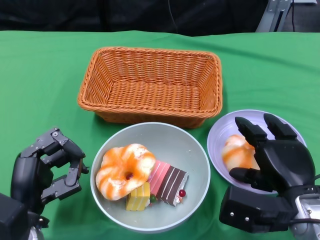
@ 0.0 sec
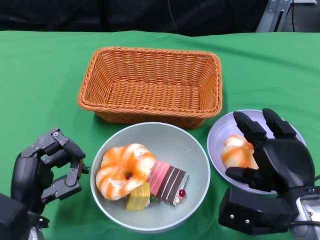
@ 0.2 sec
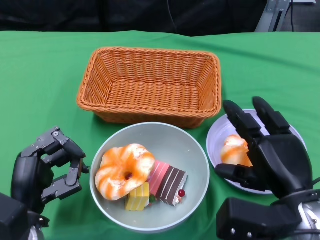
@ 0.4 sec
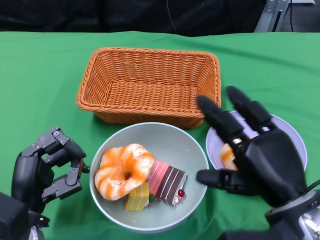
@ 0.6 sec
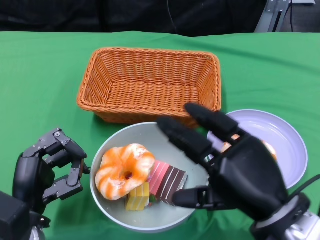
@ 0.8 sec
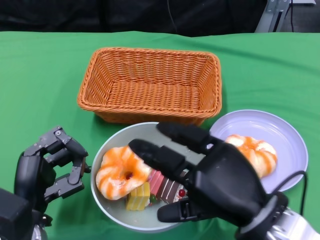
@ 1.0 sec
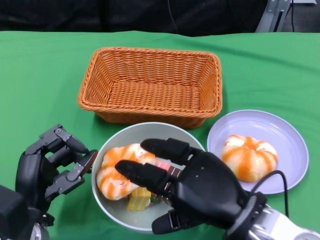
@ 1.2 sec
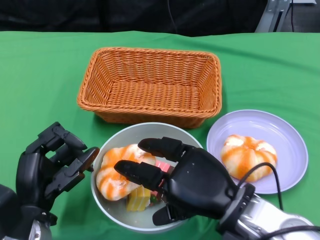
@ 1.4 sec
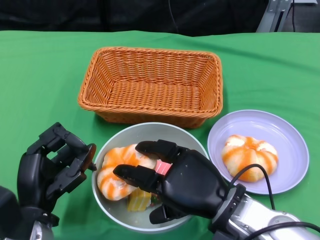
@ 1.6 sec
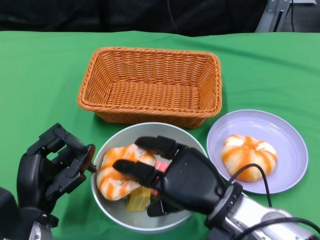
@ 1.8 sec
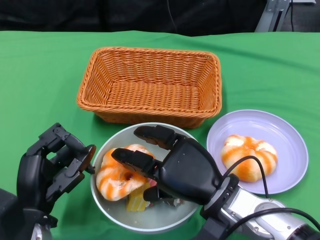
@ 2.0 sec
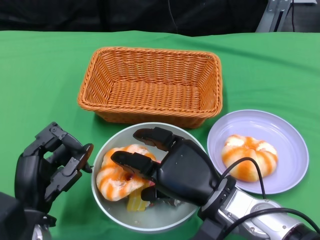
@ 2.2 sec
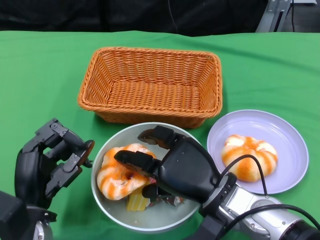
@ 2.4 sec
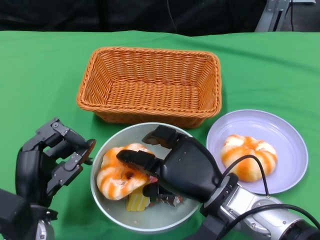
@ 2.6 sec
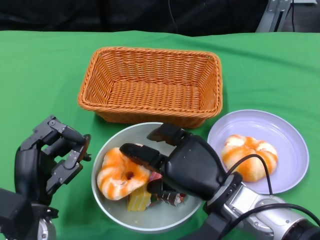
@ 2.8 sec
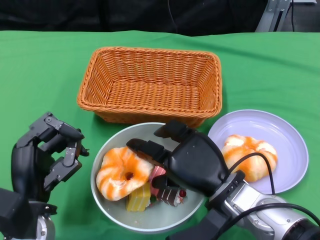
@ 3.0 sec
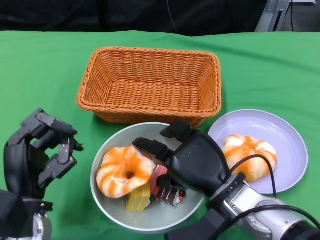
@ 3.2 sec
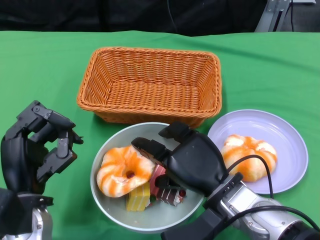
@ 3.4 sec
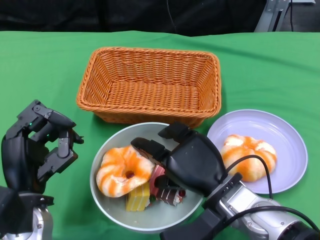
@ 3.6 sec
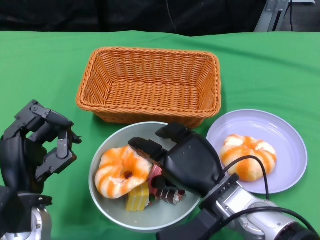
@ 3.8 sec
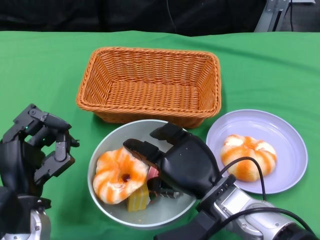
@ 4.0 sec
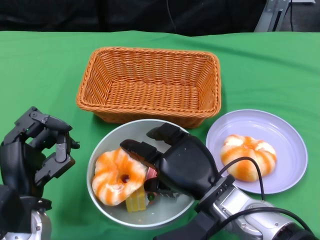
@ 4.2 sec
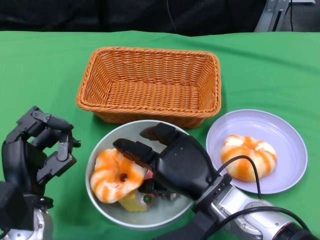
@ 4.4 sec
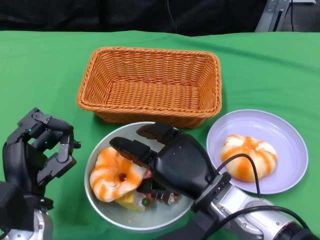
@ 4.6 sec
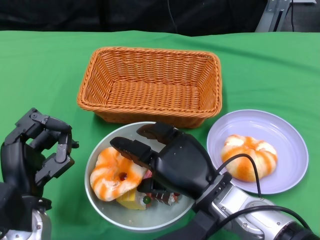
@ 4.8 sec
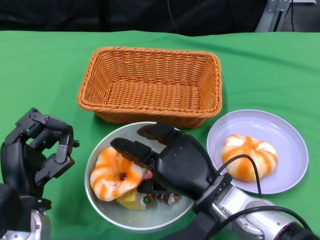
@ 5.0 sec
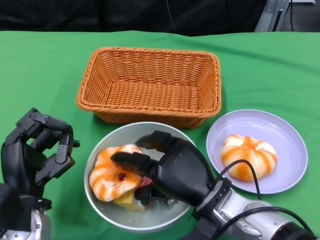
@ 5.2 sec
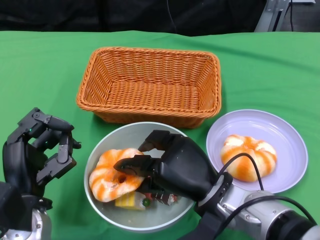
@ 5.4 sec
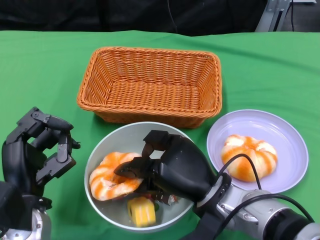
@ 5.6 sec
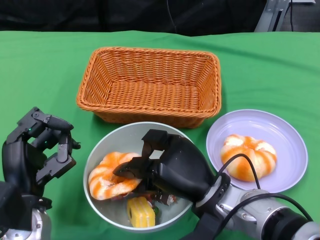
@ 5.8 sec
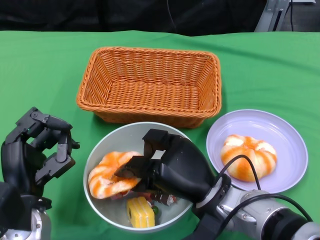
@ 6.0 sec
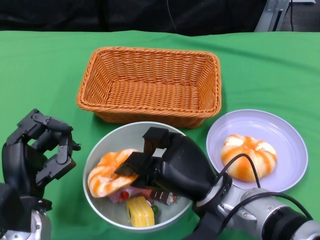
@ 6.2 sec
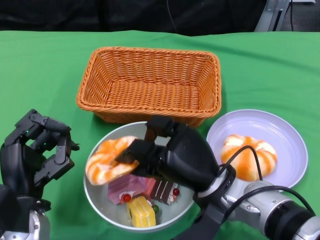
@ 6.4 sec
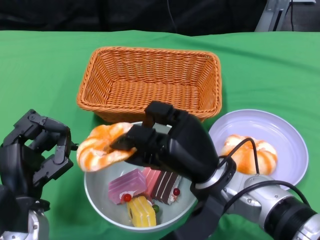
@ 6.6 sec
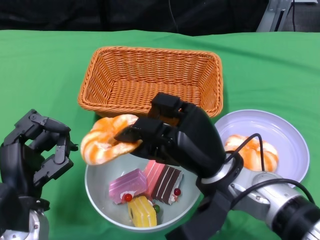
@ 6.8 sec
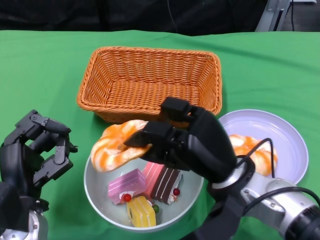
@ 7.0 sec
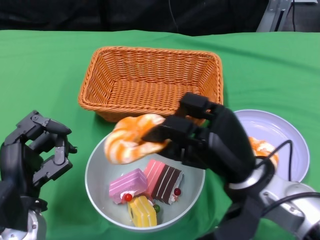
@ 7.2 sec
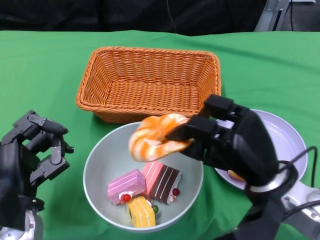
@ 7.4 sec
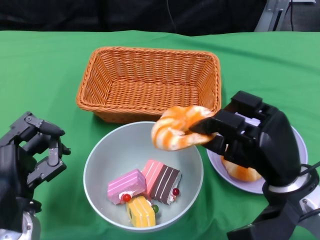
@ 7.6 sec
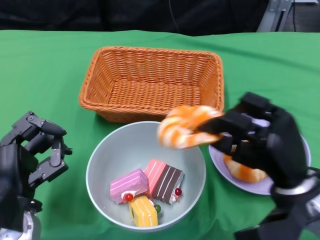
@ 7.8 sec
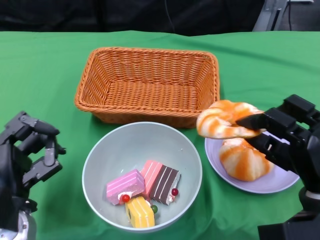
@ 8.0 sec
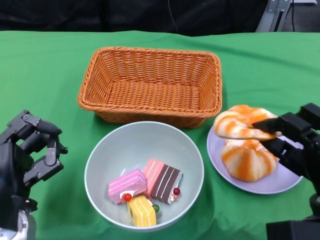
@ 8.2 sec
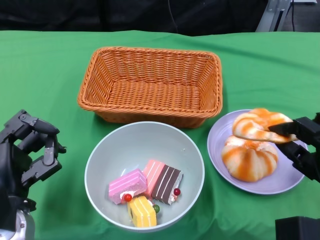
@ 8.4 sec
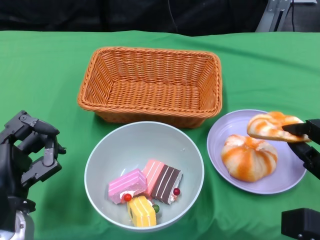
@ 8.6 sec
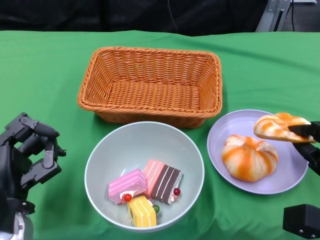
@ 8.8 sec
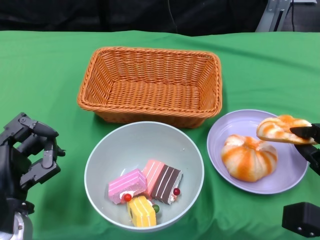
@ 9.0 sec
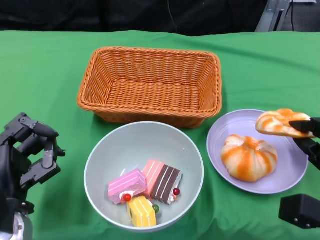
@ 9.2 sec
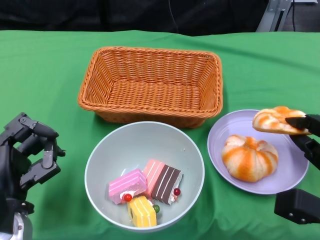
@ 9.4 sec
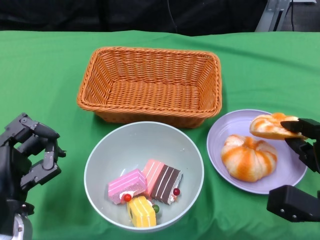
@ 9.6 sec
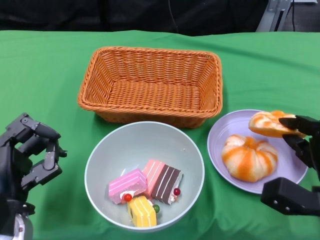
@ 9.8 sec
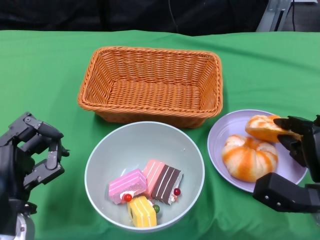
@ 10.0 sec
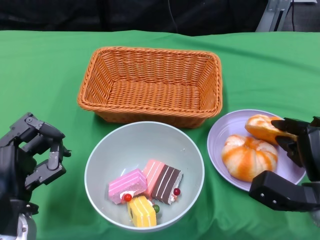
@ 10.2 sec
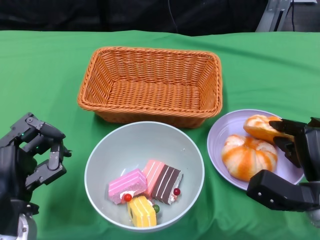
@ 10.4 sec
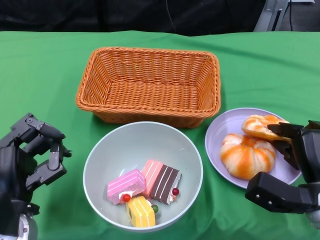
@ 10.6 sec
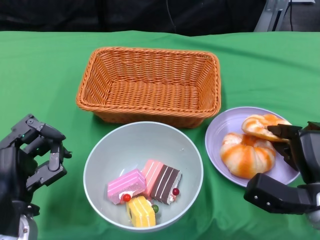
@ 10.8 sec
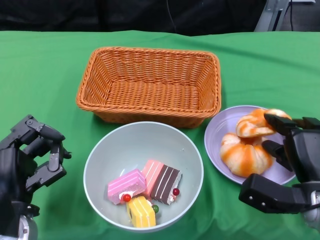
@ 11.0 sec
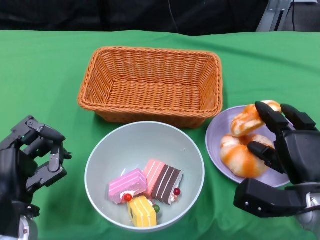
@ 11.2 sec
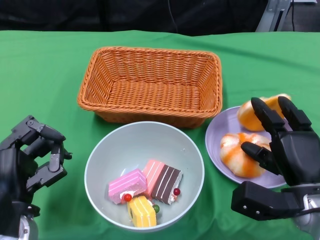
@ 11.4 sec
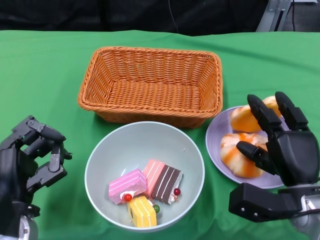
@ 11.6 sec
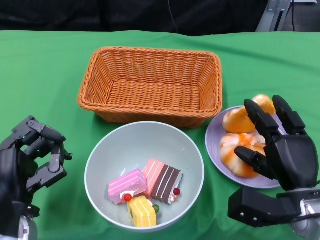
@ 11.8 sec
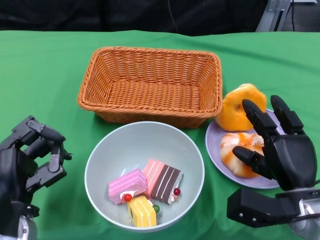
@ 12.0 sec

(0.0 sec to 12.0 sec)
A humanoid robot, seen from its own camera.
0.0 sec - 1.6 sec: The right hand moves to the left, some 10 cm.
4.4 sec - 6.0 sec: The hands stay close to where they were, moving slightly.
6.0 sec - 7.6 sec: The right hand shifts roughly 10 cm to the right.
7.6 sec - 9.0 sec: The right hand is displaced to the right and downward by about 10 cm.
9.0 sec - 10.4 sec: The right hand moves roughly 5 cm.
10.4 sec - 12.0 sec: The hands make only small movements.

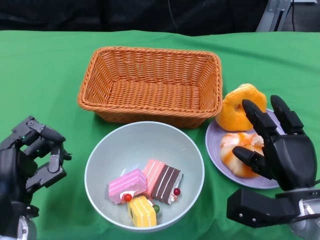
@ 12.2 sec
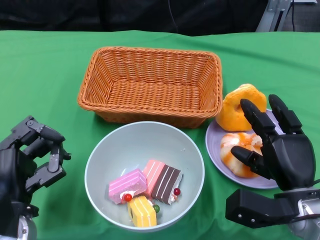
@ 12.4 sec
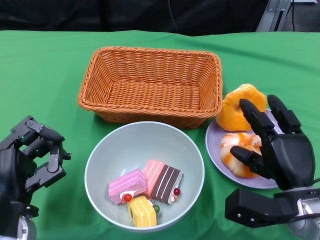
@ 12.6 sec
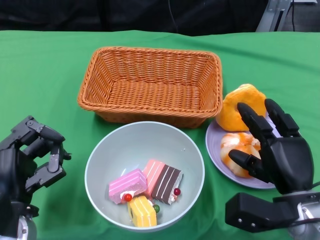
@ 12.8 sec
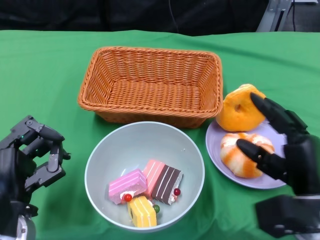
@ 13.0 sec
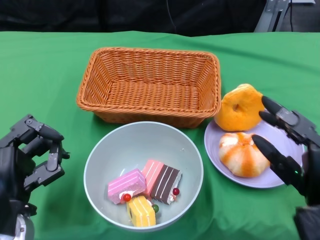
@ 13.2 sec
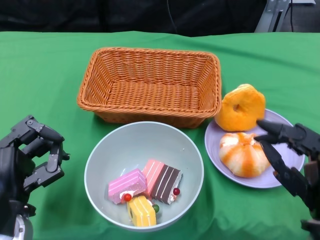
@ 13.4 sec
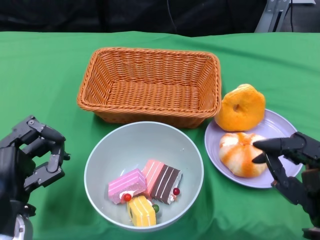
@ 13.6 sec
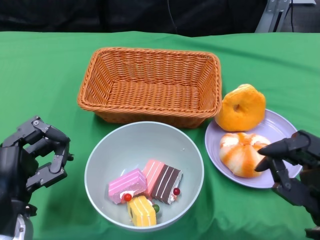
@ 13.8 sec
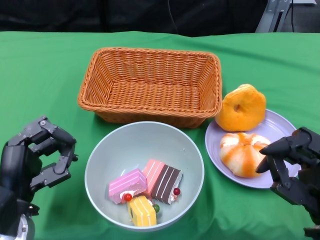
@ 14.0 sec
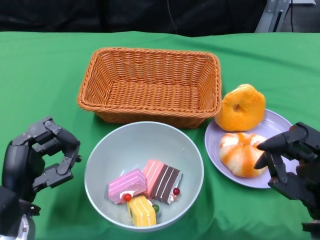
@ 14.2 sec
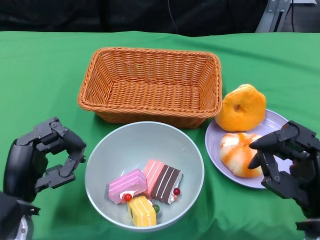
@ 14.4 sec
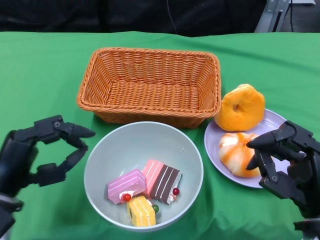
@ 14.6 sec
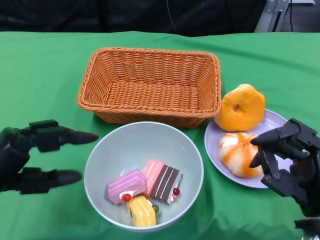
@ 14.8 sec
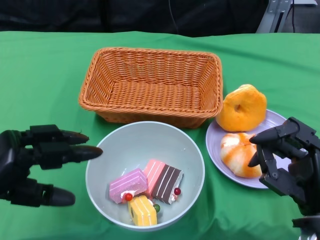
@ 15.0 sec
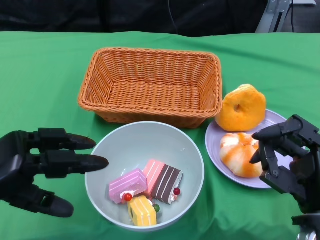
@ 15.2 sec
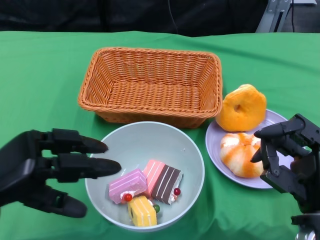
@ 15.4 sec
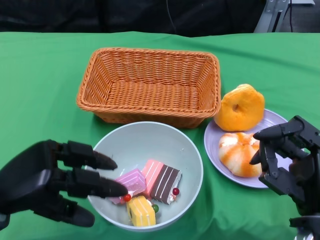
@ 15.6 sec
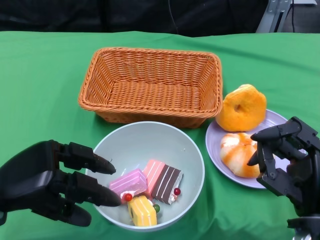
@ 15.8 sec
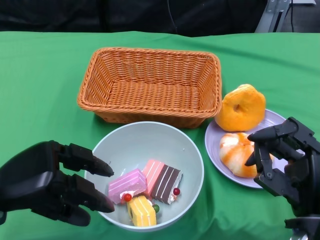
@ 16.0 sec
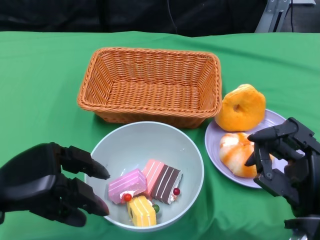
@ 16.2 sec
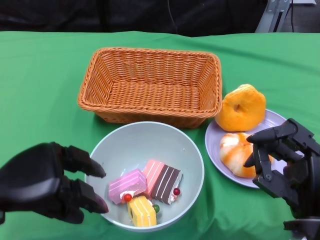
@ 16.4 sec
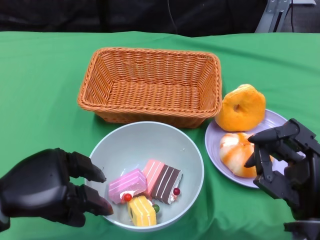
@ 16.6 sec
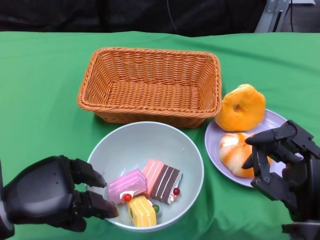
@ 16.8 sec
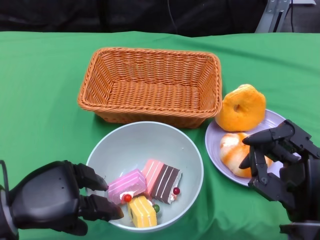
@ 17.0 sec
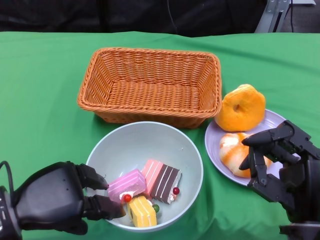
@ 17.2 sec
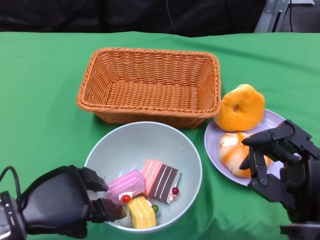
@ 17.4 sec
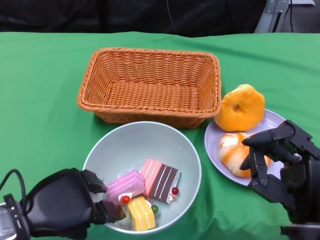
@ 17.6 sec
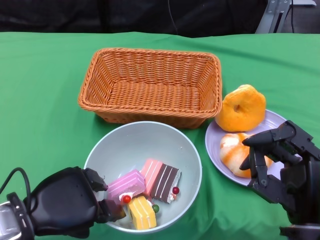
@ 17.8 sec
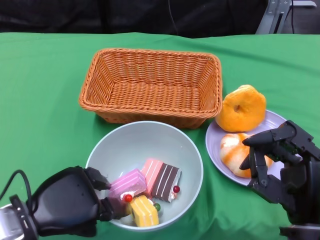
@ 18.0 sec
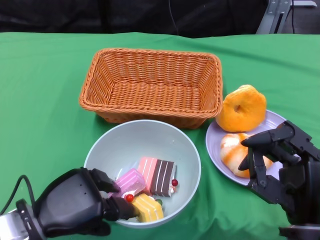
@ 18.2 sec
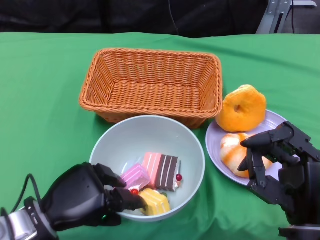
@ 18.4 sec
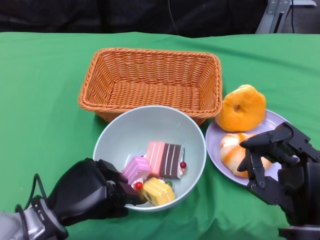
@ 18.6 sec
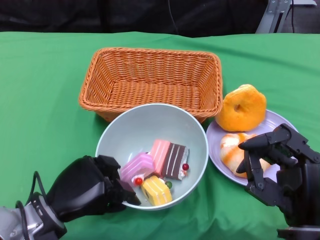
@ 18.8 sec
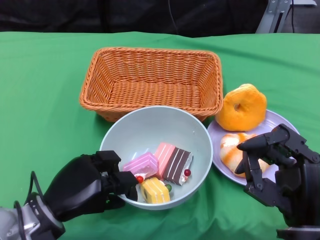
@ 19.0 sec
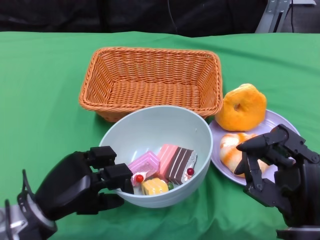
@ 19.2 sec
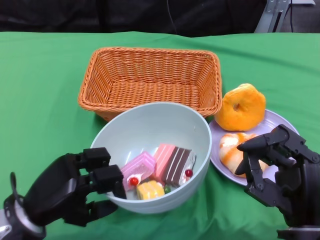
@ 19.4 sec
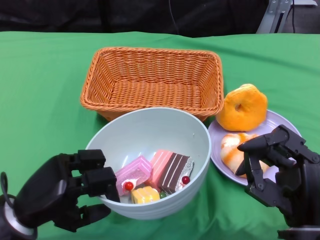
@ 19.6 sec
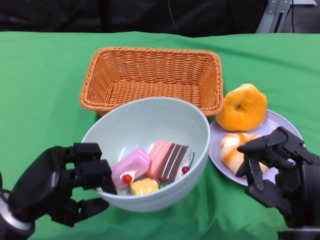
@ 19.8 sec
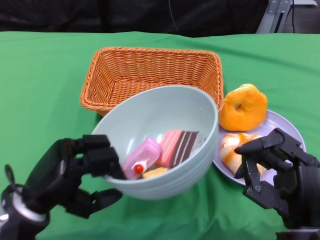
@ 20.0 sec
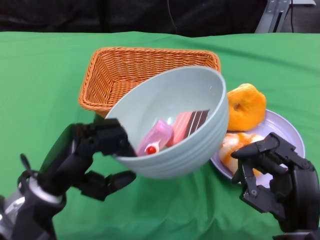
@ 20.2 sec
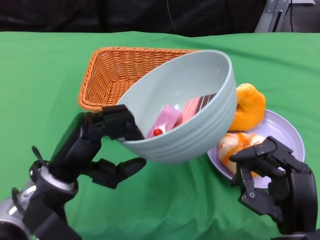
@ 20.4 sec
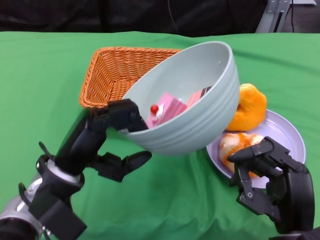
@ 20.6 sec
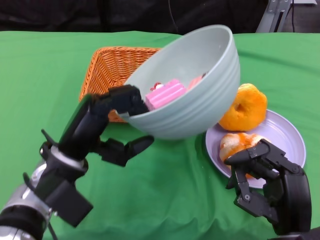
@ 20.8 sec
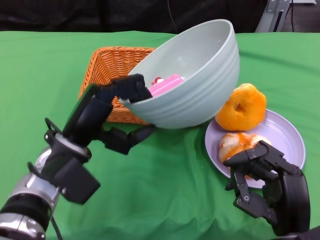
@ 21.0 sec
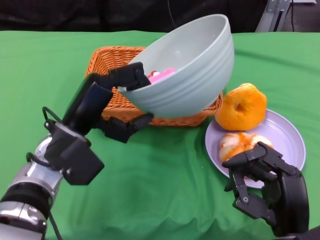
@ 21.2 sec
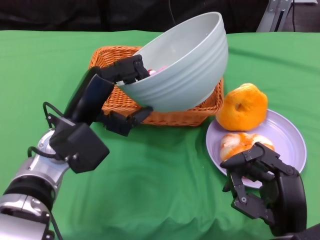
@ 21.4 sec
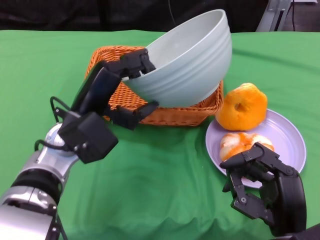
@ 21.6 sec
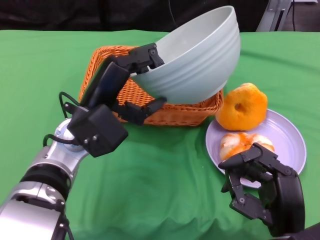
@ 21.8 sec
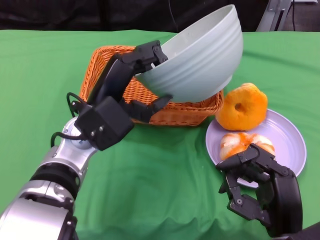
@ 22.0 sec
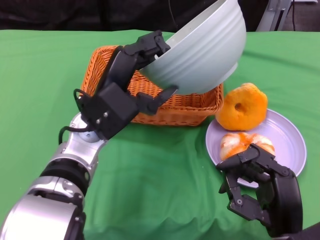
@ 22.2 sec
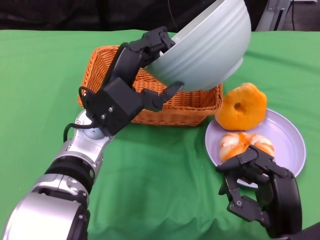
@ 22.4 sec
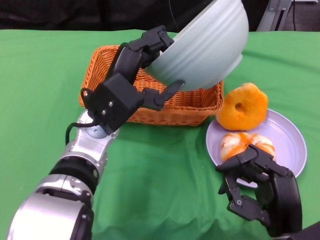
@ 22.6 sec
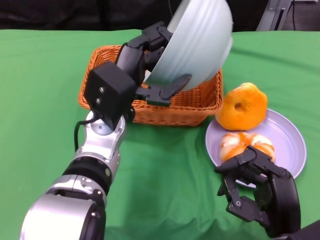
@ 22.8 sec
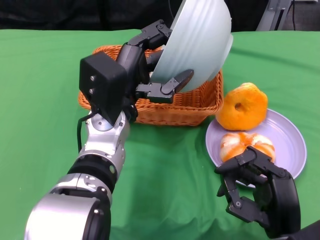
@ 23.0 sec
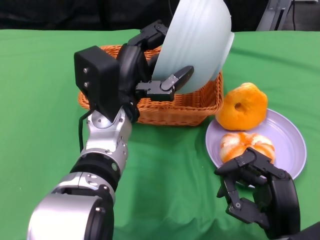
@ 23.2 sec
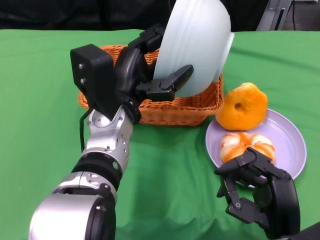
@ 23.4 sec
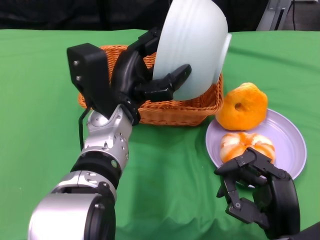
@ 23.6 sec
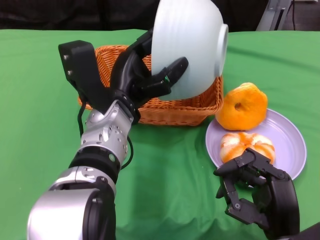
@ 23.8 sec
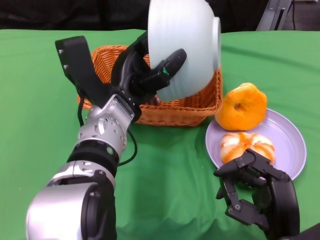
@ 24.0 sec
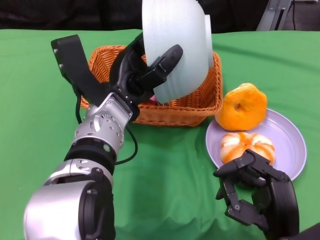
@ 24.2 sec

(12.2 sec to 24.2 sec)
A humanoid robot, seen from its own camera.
Step, 12.8 sec - 20.0 sec: Grasp the bowl with the left gripper.
12.2 sec - 13.8 sec: The right hand travels backward and upward by some 10 cm.
13.8 sec - 15.2 sec: The left hand goes roughly 10 cm upward and to the left.
16.6 sec - 18.2 sec: The left hand ends up some 5 cm from where it was.
19.8 sec - 21.2 sec: The left hand shifts about 10 cm forward and to the right.
21.2 sec - 22.6 sec: The left hand goes roughly 5 cm to the right.
